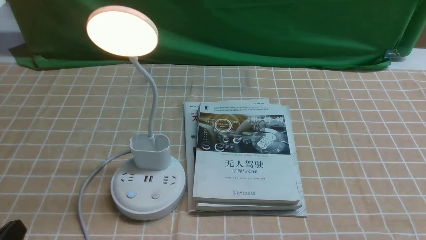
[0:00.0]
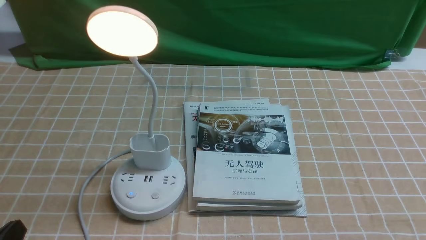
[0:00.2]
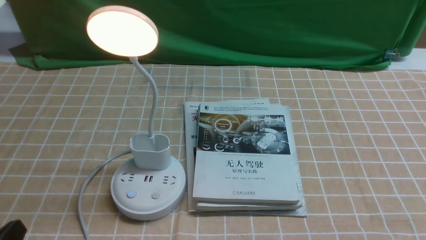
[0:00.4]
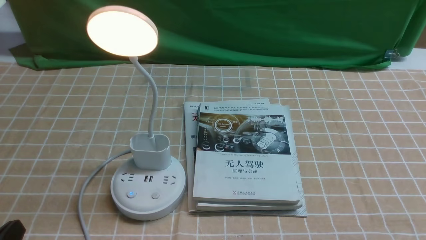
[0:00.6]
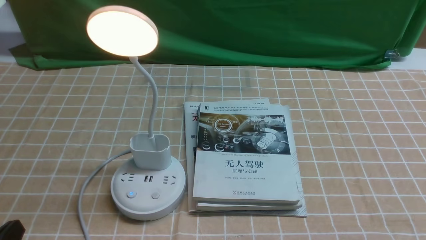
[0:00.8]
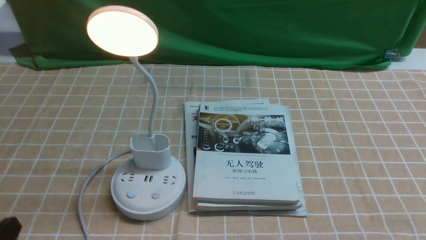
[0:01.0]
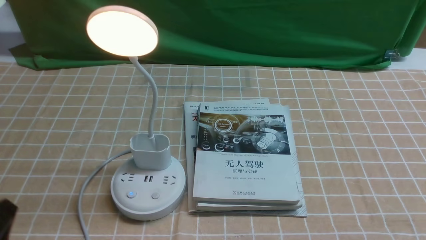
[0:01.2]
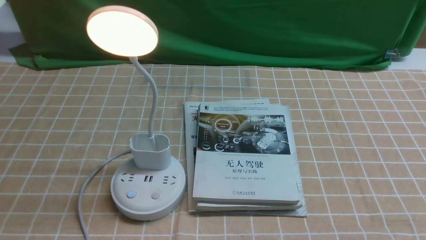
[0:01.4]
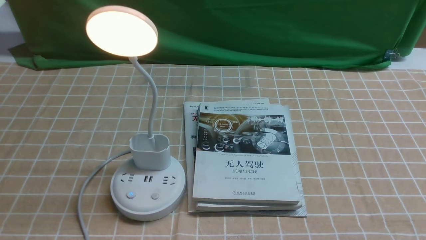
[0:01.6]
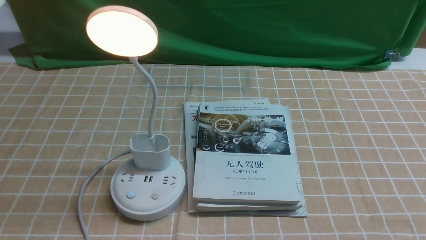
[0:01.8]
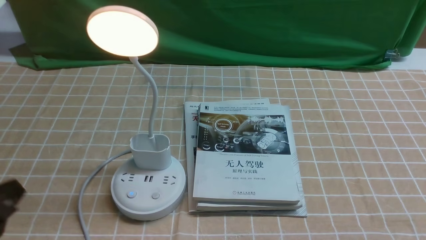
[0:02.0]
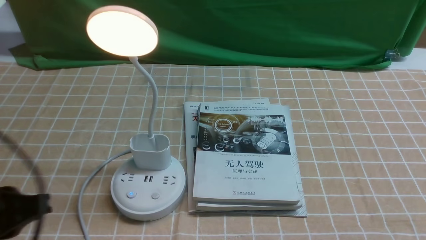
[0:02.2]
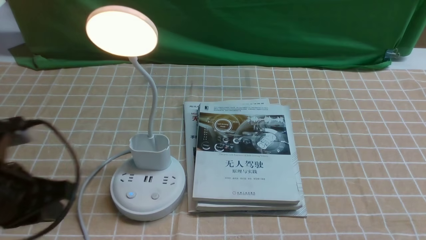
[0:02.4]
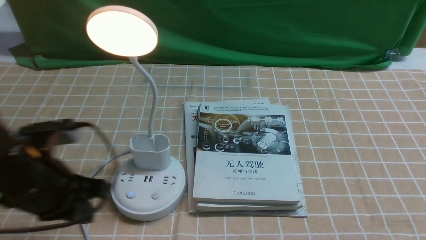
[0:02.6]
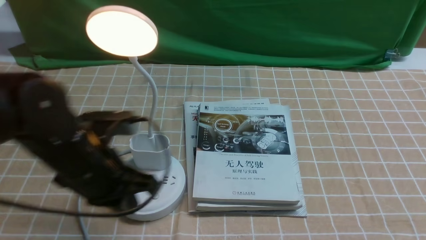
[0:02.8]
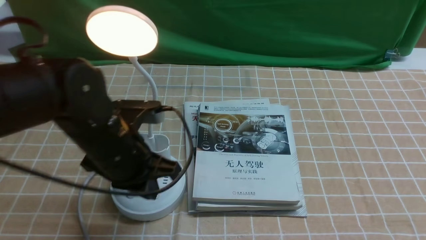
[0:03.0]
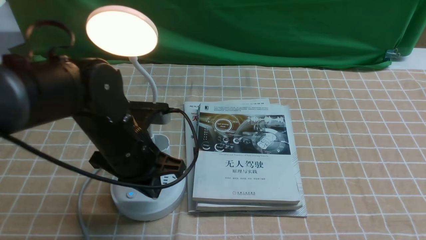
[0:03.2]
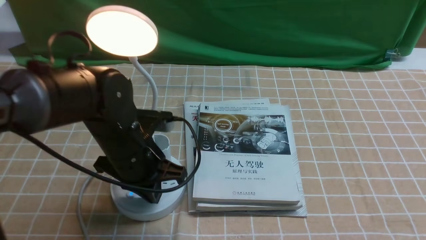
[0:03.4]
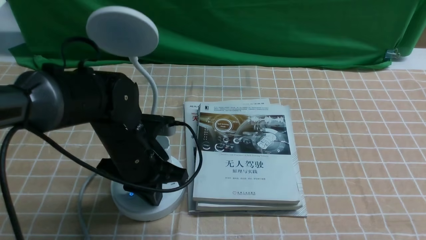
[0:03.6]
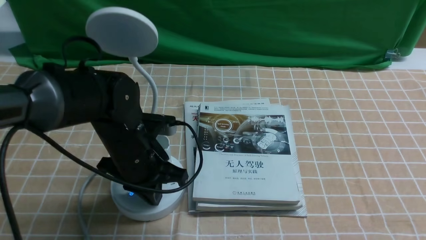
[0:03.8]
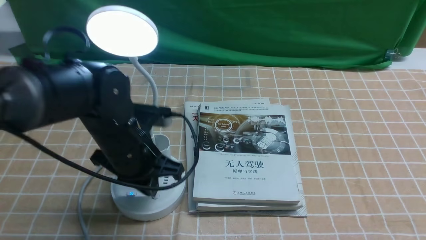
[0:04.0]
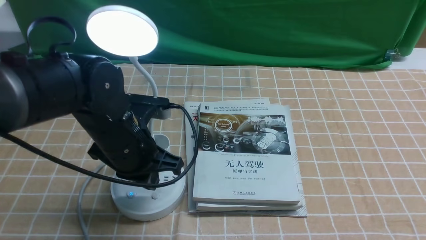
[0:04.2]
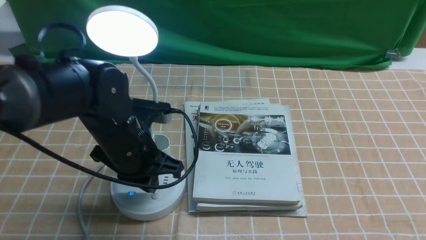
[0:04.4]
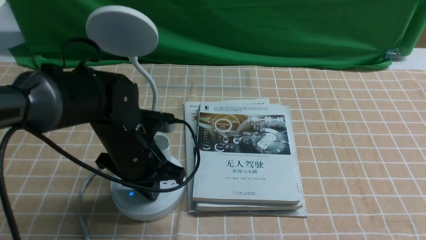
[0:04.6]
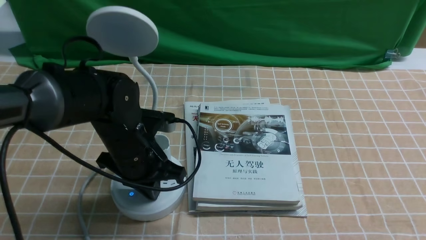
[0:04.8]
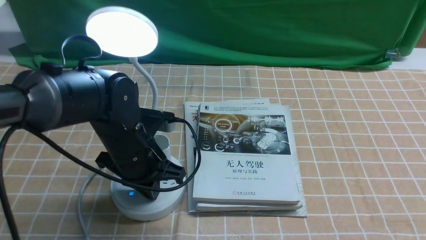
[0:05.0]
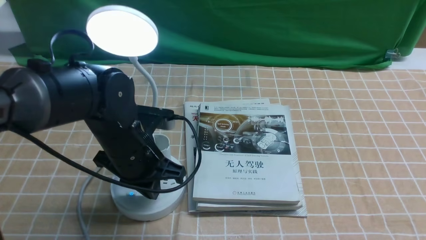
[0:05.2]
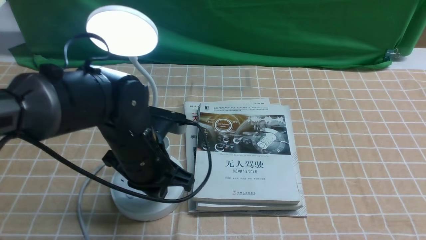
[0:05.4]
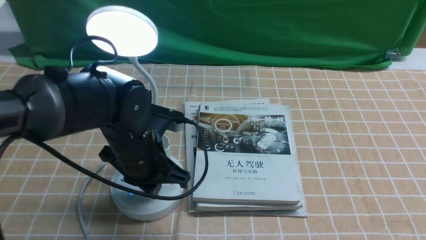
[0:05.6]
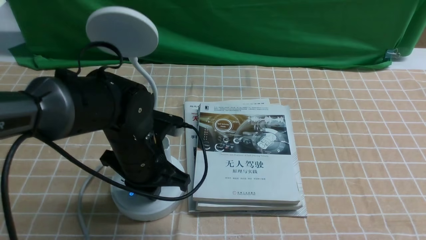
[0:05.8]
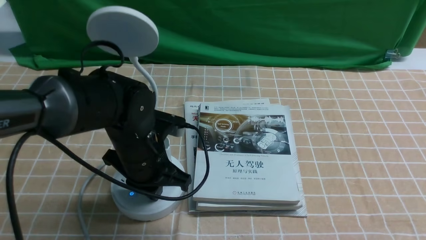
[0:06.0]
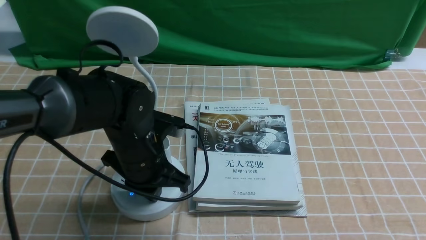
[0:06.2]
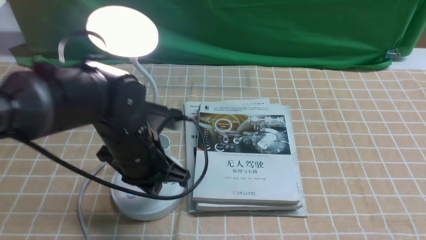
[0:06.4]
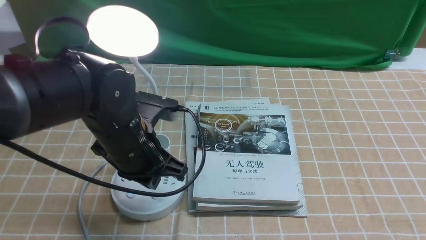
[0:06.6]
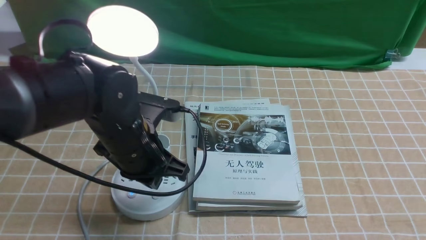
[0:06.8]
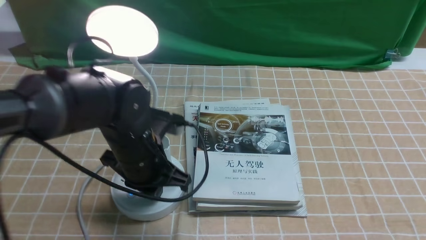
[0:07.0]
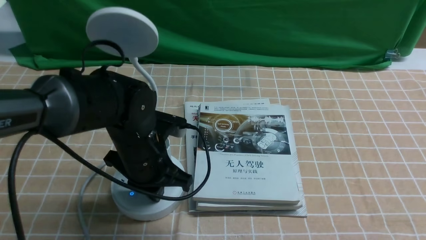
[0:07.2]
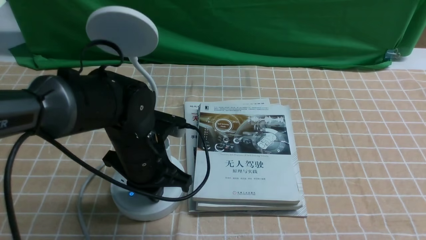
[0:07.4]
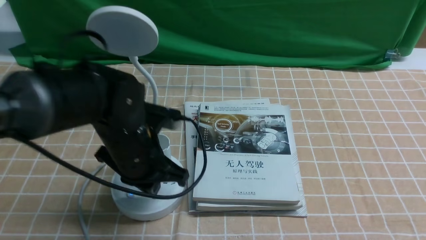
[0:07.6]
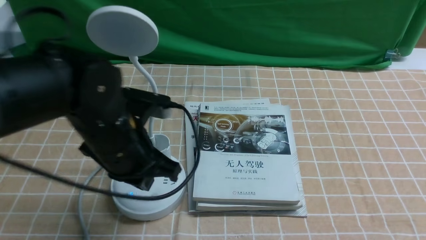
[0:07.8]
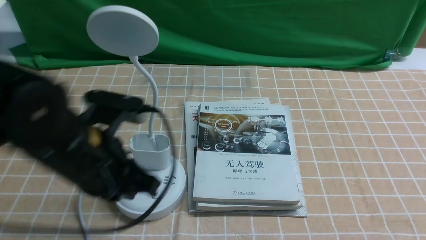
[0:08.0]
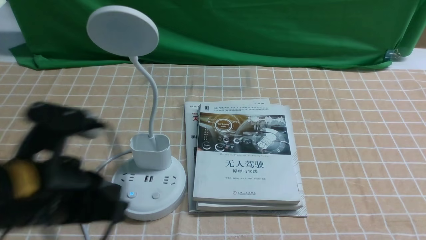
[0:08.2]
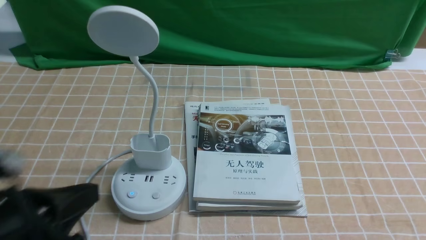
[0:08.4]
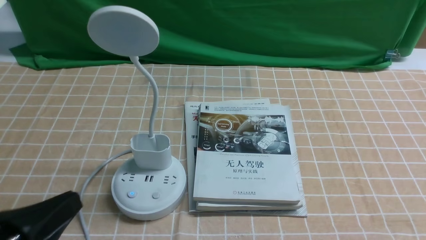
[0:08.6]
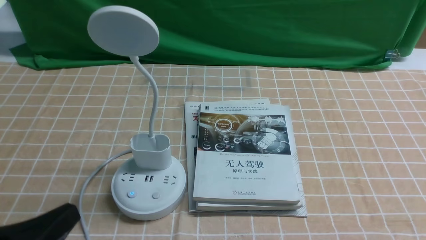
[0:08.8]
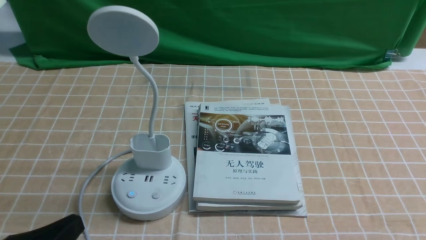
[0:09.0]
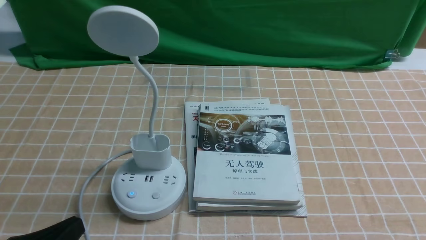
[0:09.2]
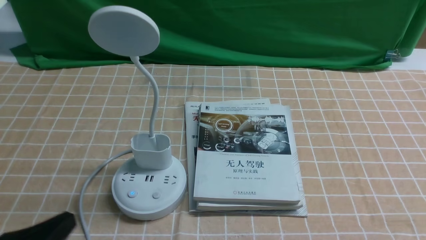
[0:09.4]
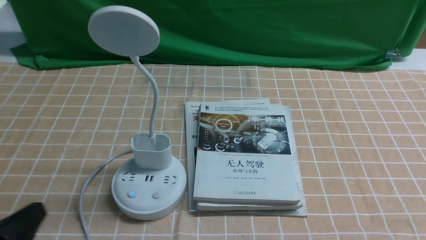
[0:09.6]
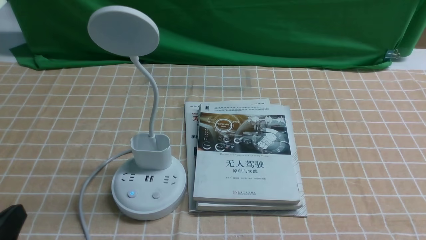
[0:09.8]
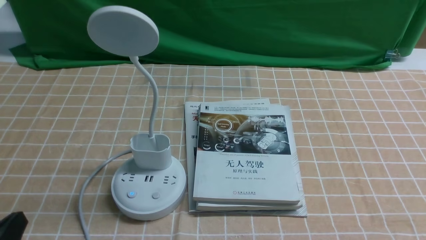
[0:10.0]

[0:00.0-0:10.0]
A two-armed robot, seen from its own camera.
Task of the whole recording: turn off the desk lamp on the light coffee tablecloth by hand.
Step, 0:00.0 to 0:07.6: use the left arm to press the button switch on the lamp holder.
0:01.4 to 0:02.8: The left gripper is displaced forward and to the right by about 20 cm, and closes its fingers.
0:02.8 to 0:04.2: The left gripper ends up about 5 cm from where it was.
0:04.2 to 0:05.8: The left gripper opens up.
0:05.8 to 0:07.2: There are only small adjustments of the grippers.
0:07.2 to 0:08.6: The left gripper travels backward and to the left by approximately 25 cm.
0:08.6 to 0:10.0: The left gripper shifts approximately 5 cm downward.

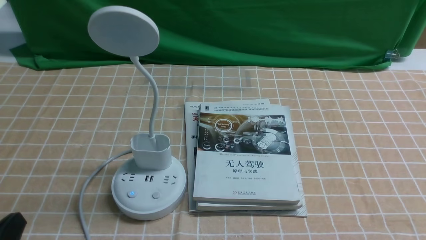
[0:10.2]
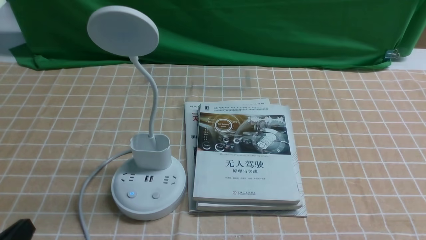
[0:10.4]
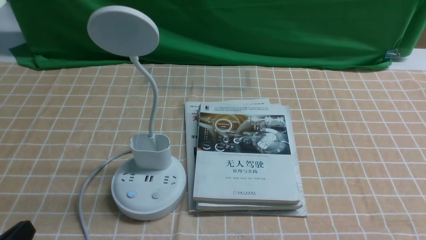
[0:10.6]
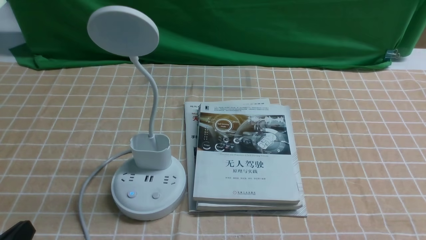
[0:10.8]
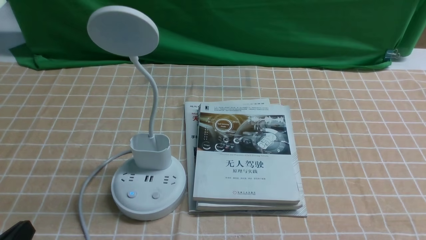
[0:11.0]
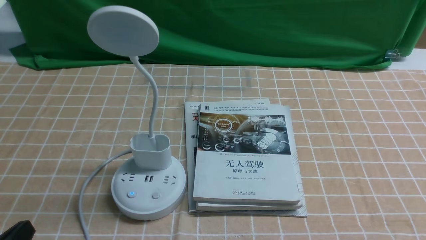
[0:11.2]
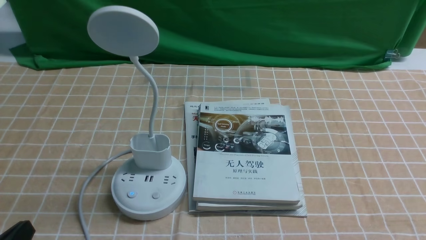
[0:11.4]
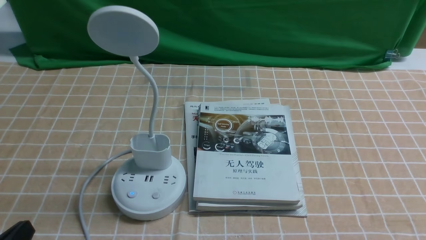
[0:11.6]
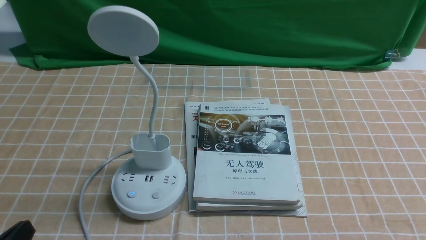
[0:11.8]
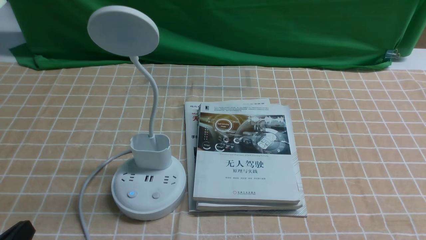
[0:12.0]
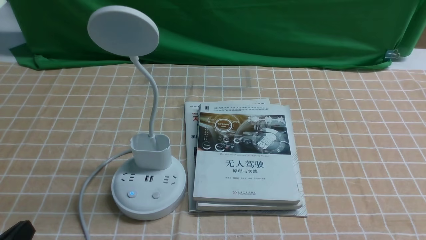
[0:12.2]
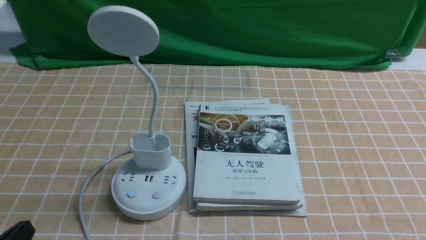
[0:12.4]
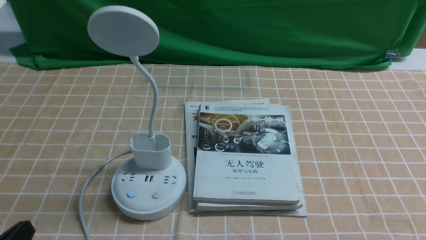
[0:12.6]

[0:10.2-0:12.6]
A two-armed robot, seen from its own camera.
Task of the whole recording: turn off the desk lamp on the light coffee tablecloth by hand.
0:10.2 to 0:12.6: Neither gripper changes place.
